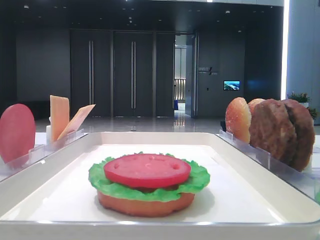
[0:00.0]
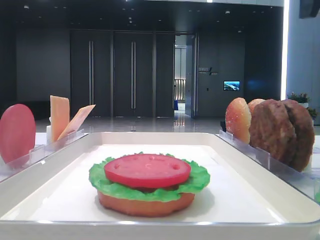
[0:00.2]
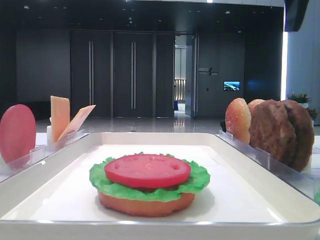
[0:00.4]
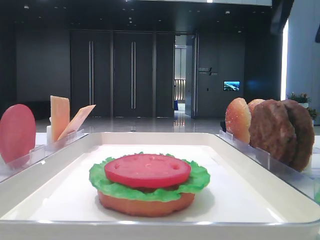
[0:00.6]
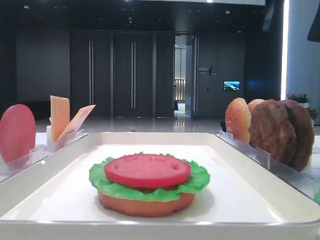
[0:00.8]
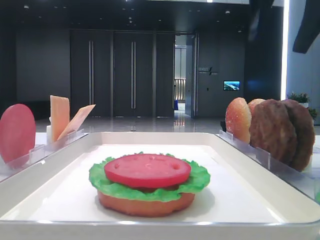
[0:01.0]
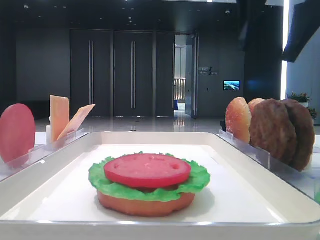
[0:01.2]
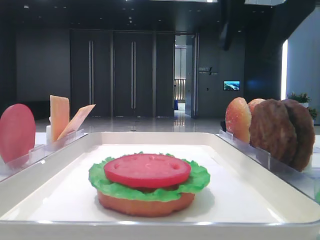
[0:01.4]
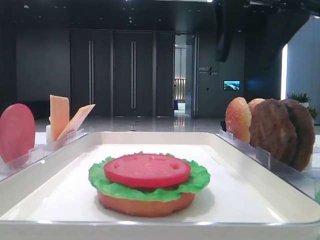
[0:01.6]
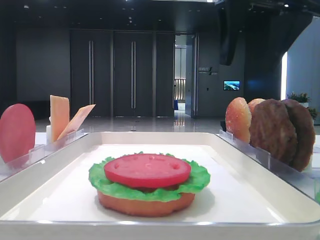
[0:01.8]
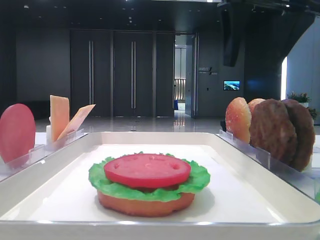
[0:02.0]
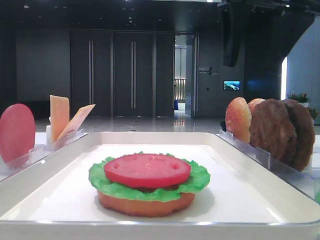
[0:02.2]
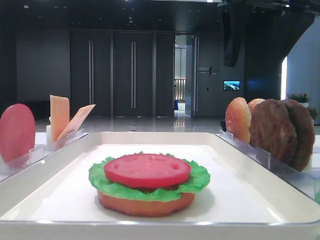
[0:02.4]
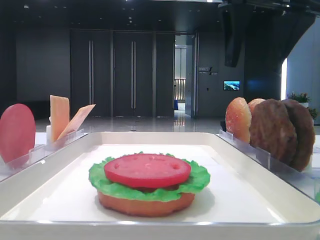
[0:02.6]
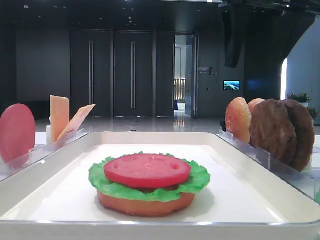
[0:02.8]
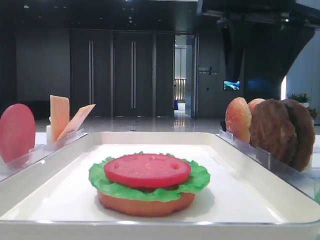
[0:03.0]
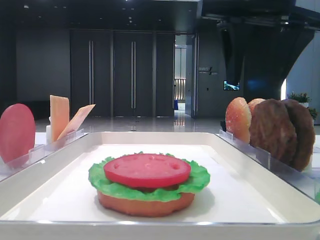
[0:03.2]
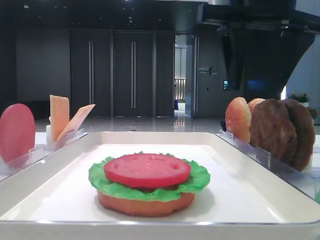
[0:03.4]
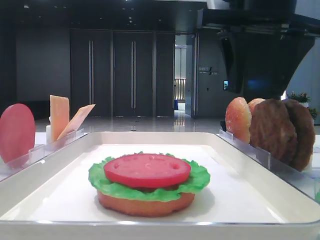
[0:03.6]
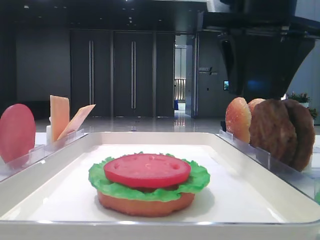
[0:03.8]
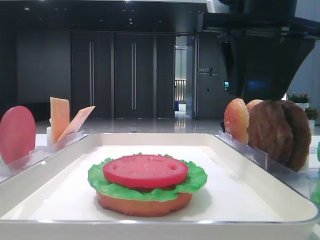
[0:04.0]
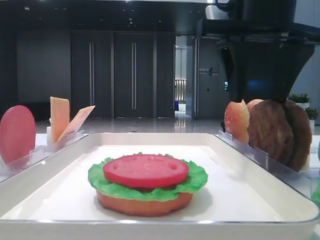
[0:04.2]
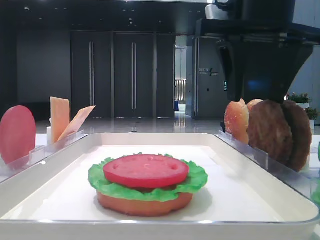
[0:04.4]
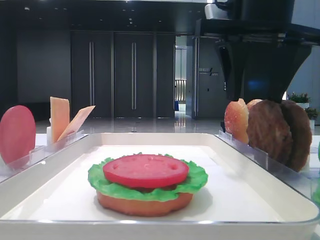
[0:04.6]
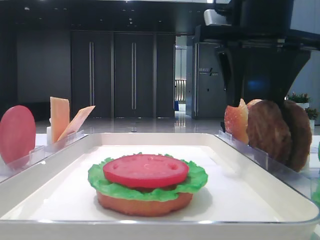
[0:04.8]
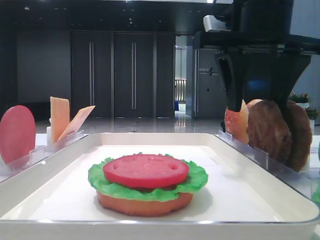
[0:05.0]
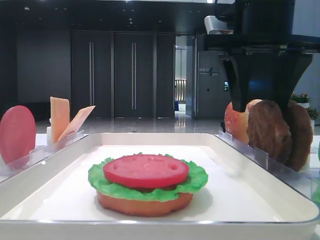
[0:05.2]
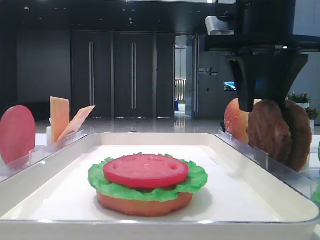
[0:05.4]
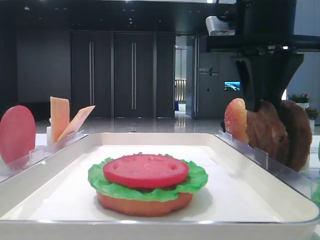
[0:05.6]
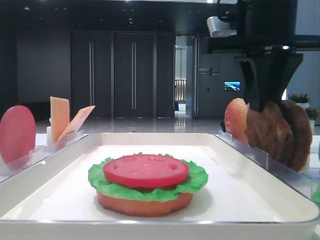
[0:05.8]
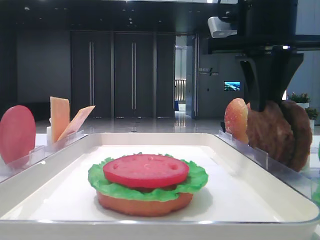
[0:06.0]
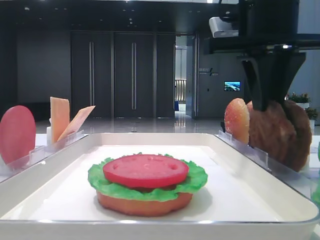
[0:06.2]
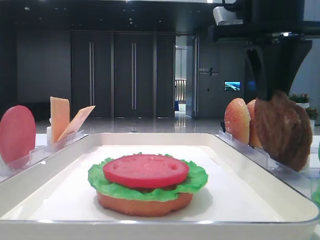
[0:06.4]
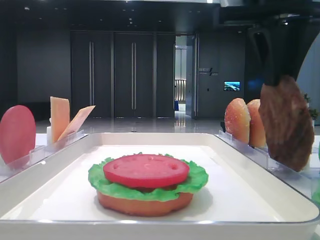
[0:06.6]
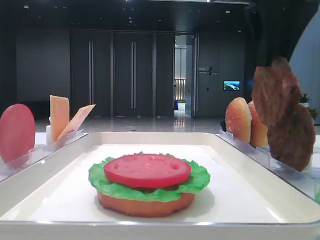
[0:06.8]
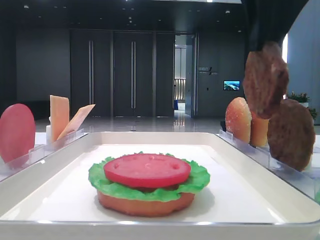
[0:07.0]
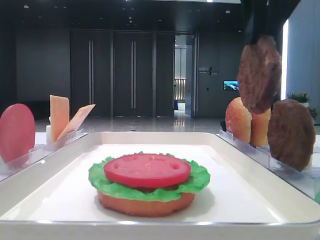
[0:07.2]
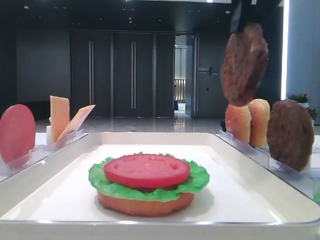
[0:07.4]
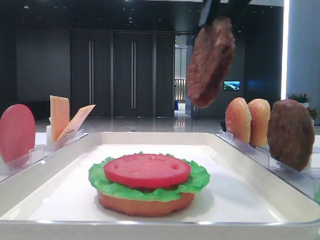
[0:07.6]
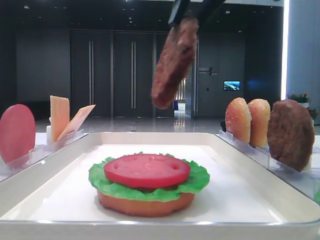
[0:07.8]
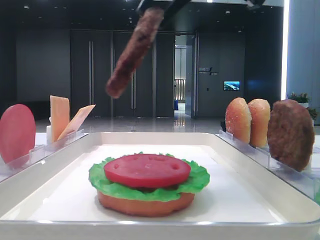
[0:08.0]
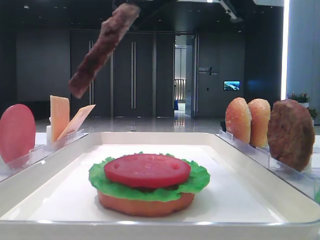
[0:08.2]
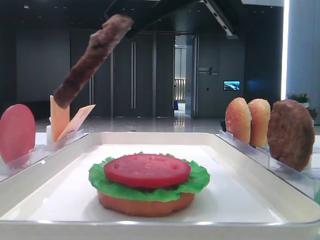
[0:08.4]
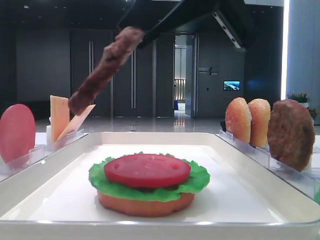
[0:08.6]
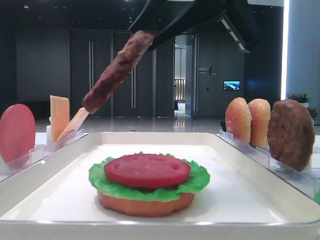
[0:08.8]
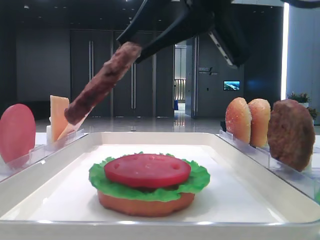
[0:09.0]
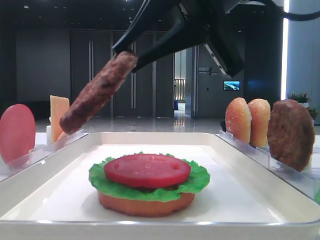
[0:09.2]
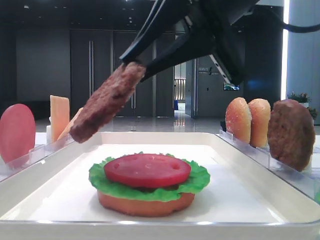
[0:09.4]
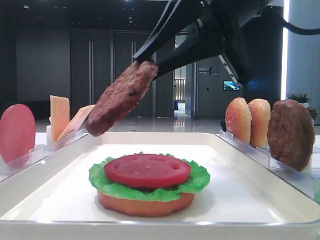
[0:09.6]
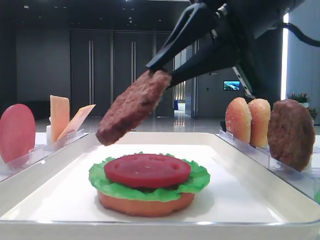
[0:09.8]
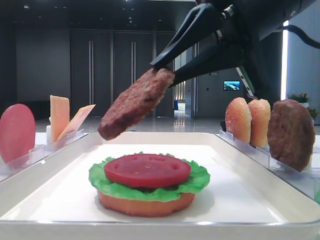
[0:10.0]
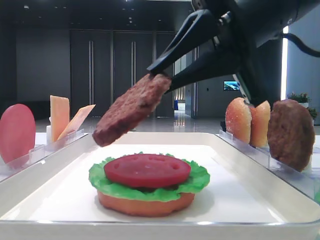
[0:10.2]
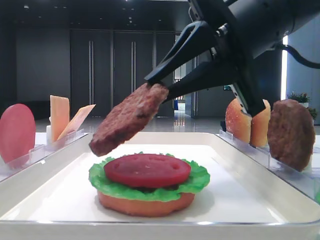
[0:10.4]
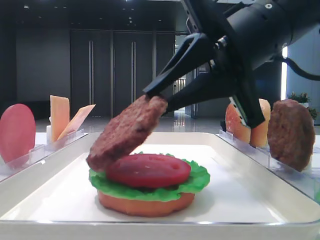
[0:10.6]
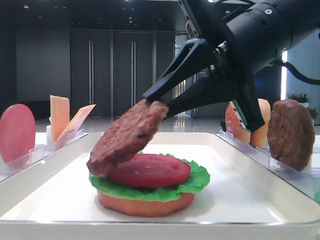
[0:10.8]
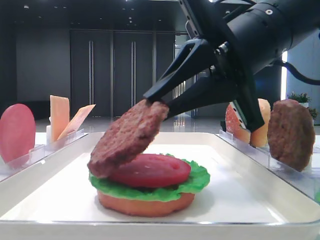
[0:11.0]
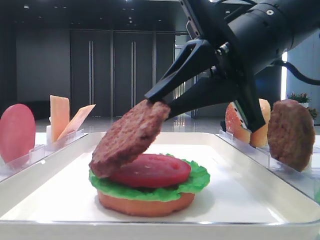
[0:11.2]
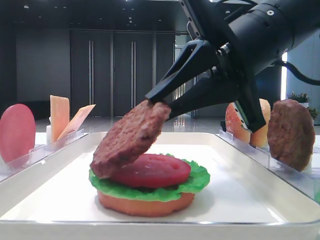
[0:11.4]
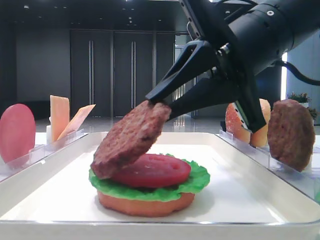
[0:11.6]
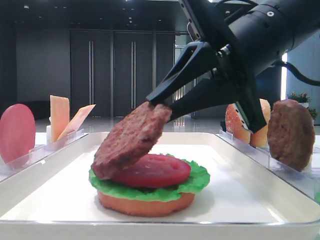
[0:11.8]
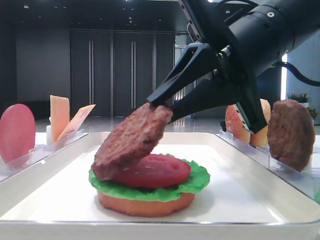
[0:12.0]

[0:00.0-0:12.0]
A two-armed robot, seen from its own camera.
Step, 0.0 to 6.6 s: Grab the patty with the right hand.
0.0 to 1.6 s: The right gripper heads to the left and downward, covering about 10 cm.
1.6 to 4.4 s: The grippers stay close to where they were, moving slightly.
4.4 to 6.0 s: The right gripper closes up.
6.0 to 7.6 s: The right gripper shifts roughly 10 cm upward and backward.
7.6 to 9.0 s: The right gripper travels downward by roughly 5 cm.
9.0 to 10.4 s: The right gripper moves about 5 cm.
10.4 to 12.0 s: The grippers move only a little.

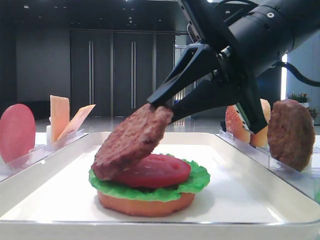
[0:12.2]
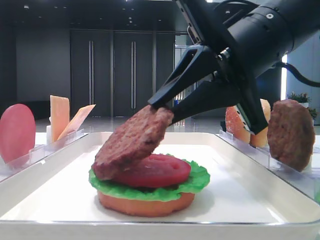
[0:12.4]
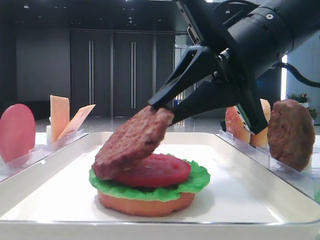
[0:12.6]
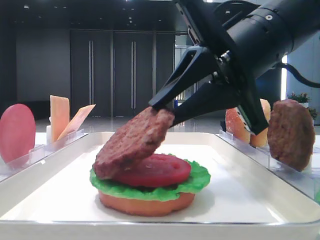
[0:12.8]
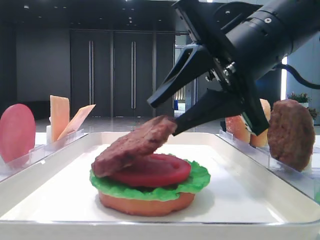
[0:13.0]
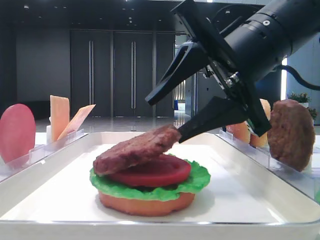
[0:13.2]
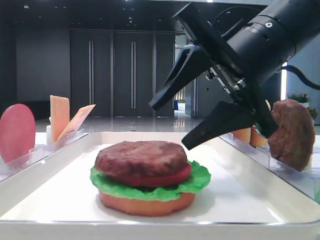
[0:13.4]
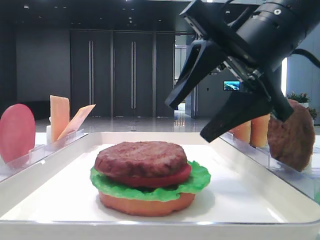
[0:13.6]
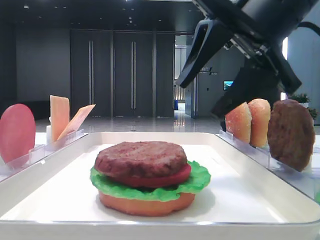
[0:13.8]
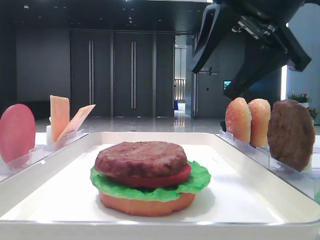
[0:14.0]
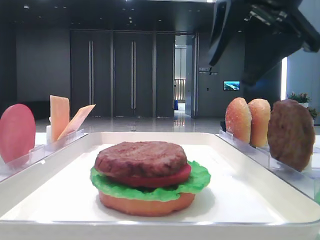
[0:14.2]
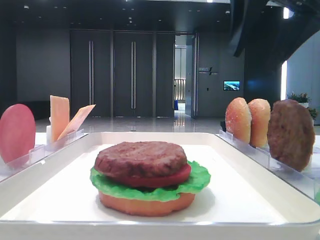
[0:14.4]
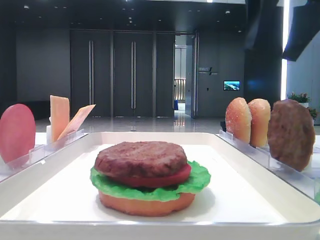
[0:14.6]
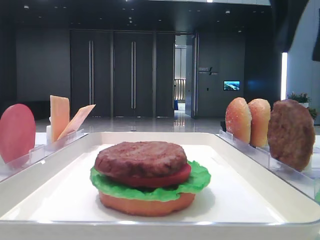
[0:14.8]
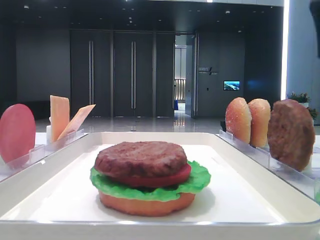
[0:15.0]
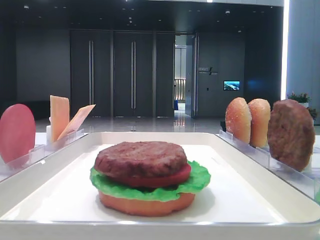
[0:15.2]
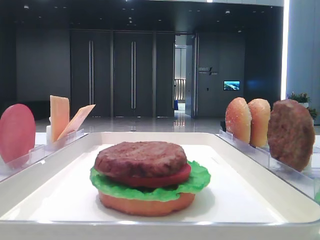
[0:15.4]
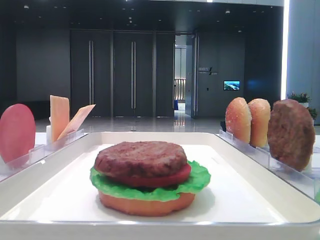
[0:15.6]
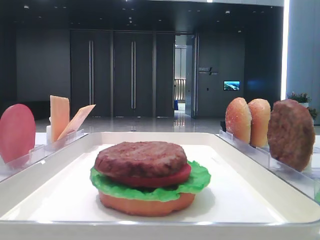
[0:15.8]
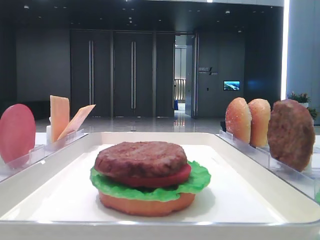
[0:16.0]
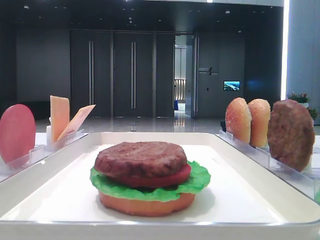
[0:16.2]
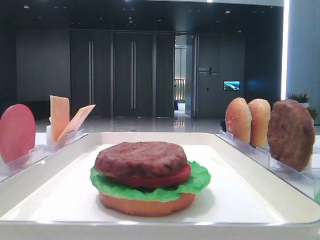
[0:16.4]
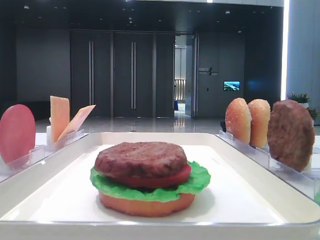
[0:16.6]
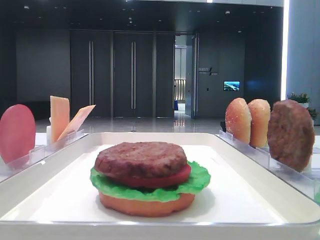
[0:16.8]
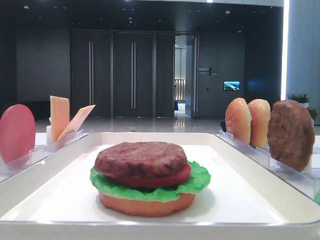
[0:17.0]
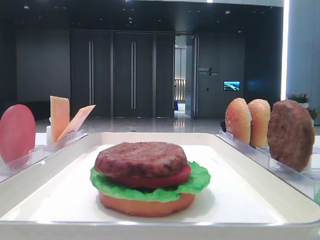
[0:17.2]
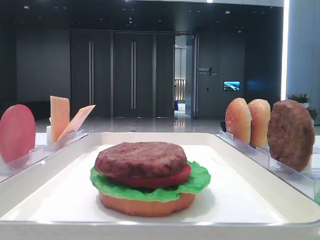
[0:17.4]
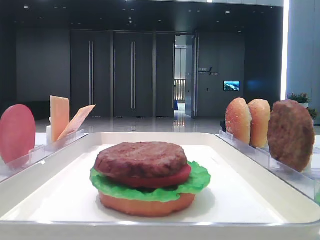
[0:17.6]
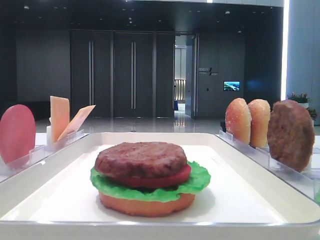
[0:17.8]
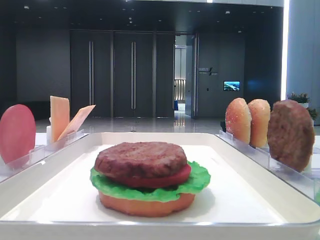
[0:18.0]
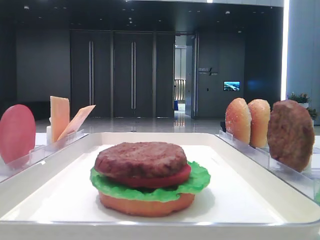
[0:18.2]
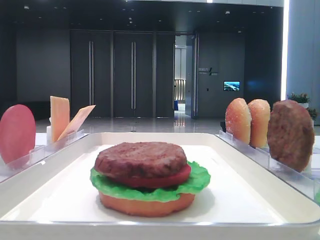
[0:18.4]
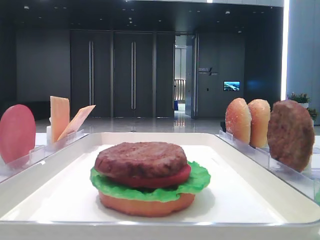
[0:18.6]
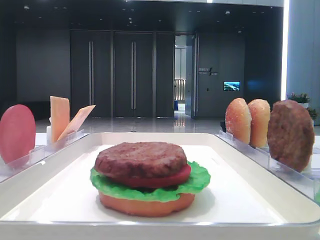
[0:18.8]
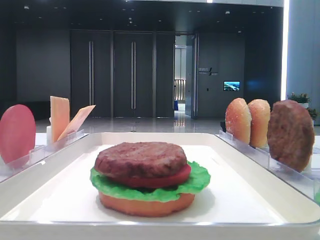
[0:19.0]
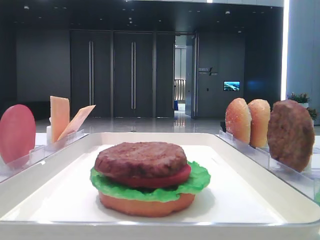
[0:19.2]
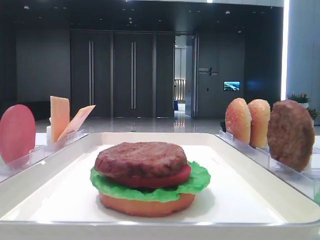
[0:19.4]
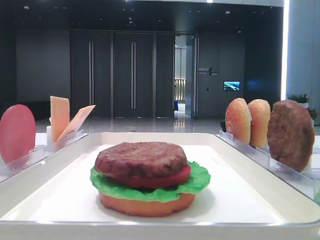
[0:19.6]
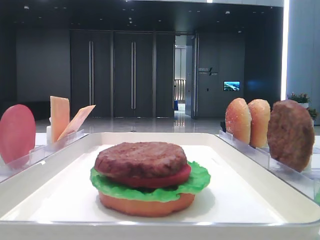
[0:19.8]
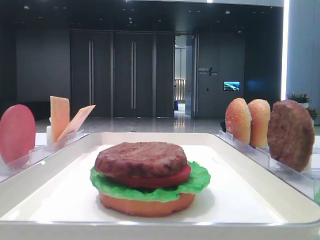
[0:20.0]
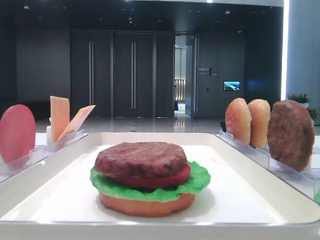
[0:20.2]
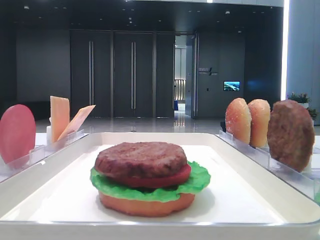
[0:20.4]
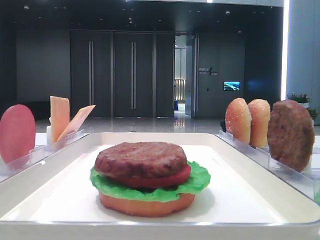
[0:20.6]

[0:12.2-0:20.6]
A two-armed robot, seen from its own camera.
12.2 to 13.6 s: The right gripper opens.
13.6 to 15.0 s: The right gripper shifts roughly 15 cm to the right and upward.
17.8 to 20.6 s: Both grippers stay about where they are.

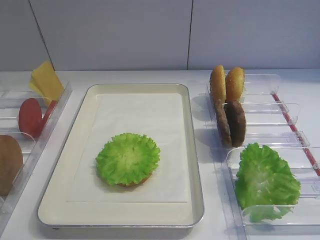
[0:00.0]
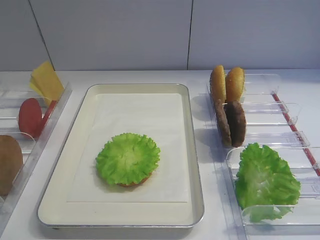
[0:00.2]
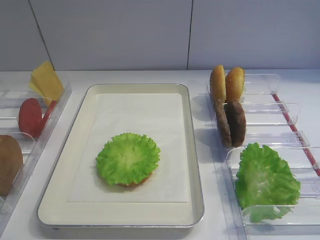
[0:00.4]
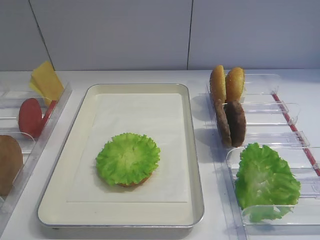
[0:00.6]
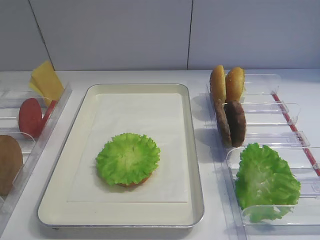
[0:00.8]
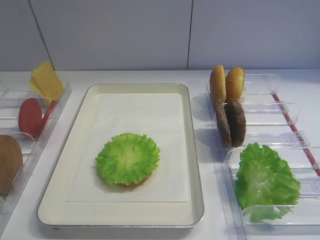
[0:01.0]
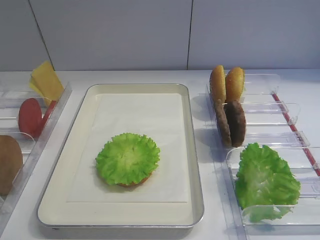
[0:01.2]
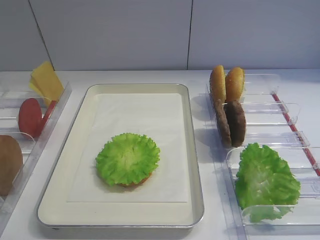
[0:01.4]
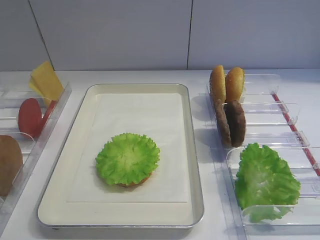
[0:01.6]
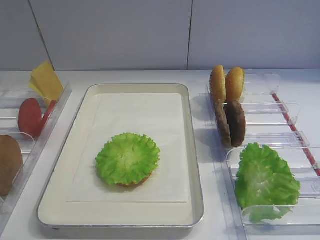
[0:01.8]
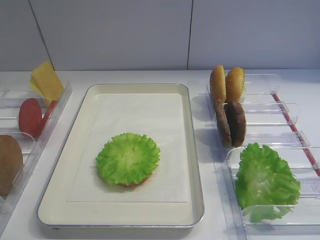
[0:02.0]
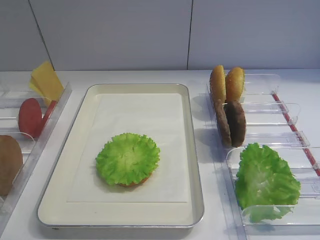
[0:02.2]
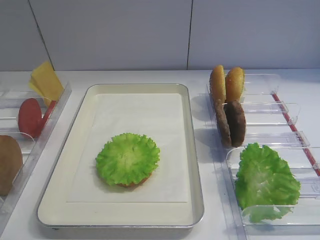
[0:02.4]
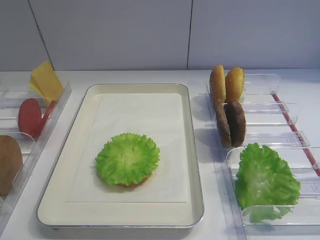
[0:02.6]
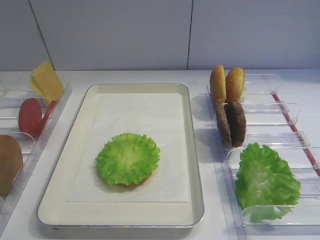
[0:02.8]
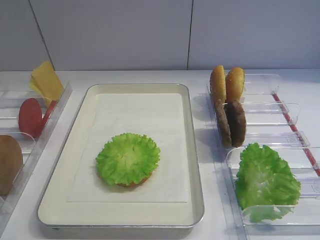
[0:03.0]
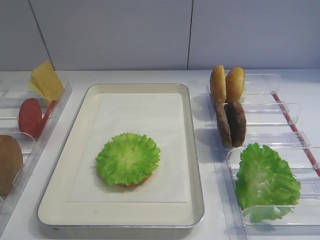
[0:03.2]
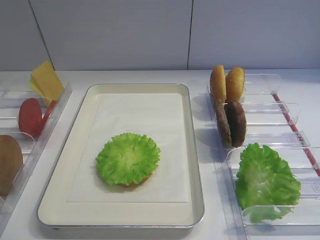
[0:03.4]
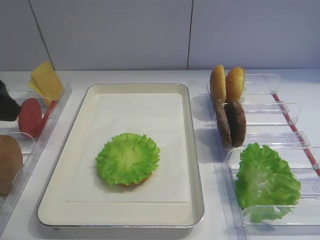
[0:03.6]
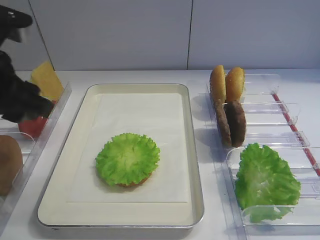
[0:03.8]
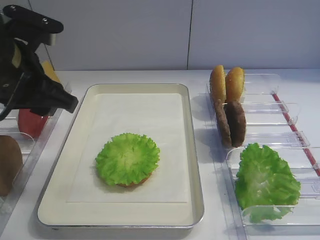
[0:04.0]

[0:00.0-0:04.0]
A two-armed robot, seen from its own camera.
1.4 to 2.6 s: Both grippers stay put.
2.6 to 4.0 s: The left gripper goes some 25 cm forward and to the right.
